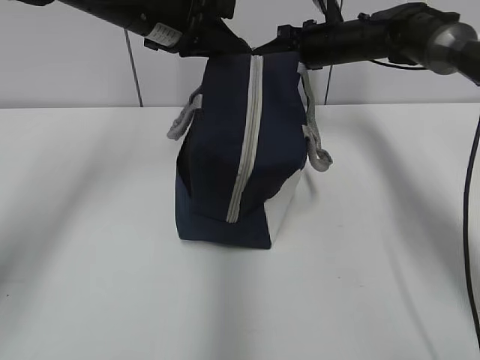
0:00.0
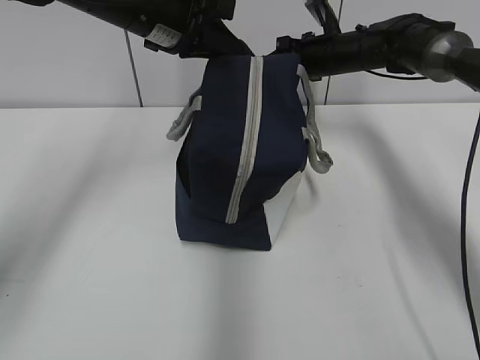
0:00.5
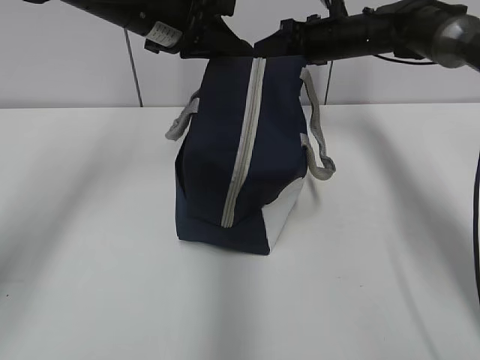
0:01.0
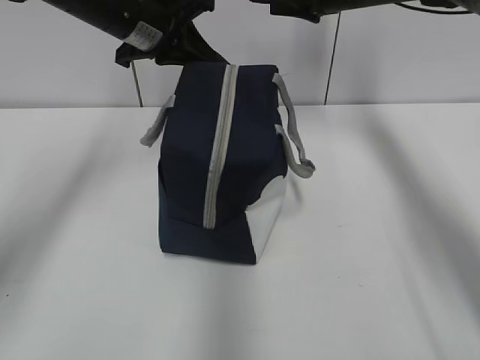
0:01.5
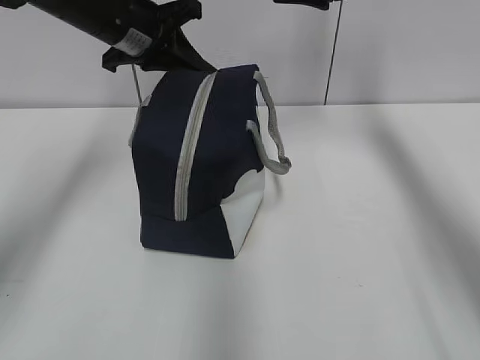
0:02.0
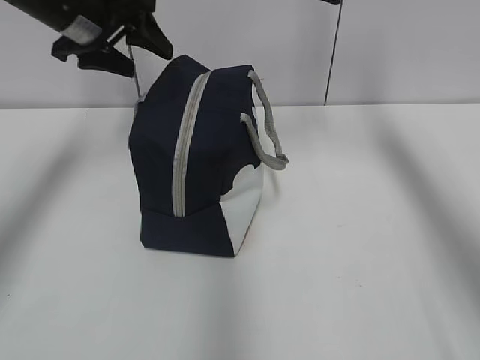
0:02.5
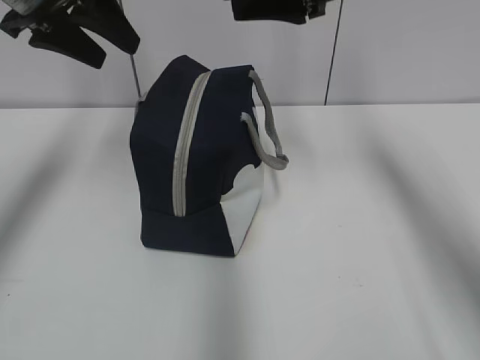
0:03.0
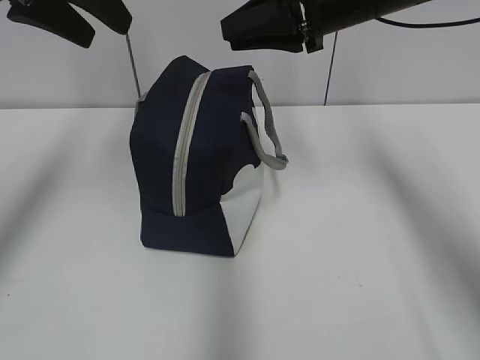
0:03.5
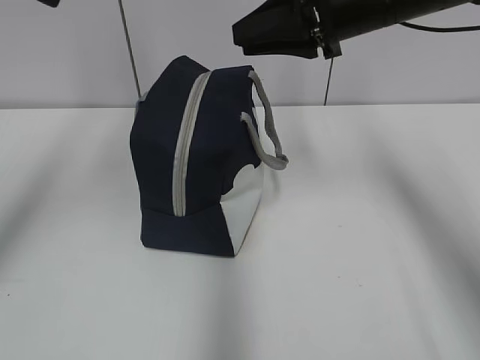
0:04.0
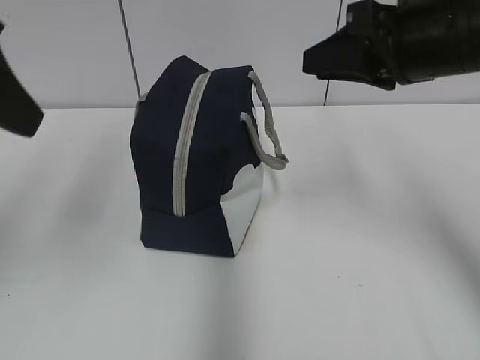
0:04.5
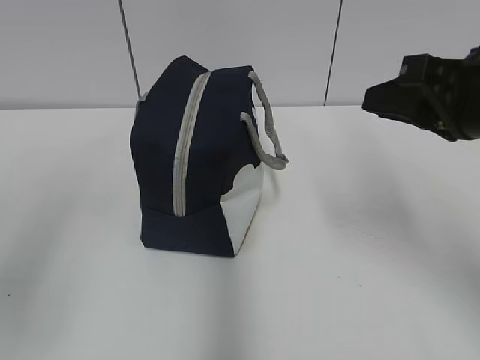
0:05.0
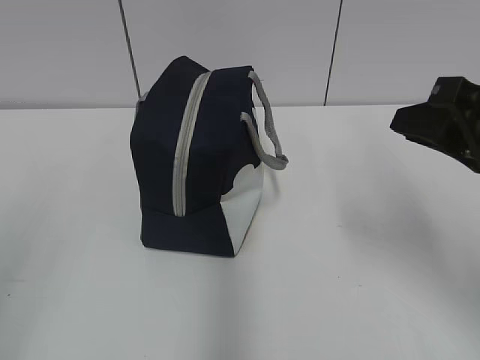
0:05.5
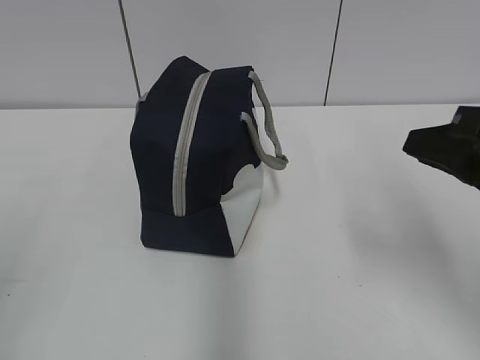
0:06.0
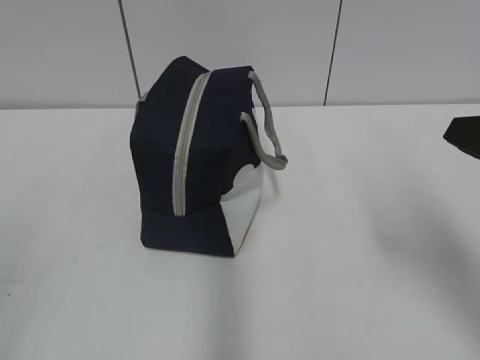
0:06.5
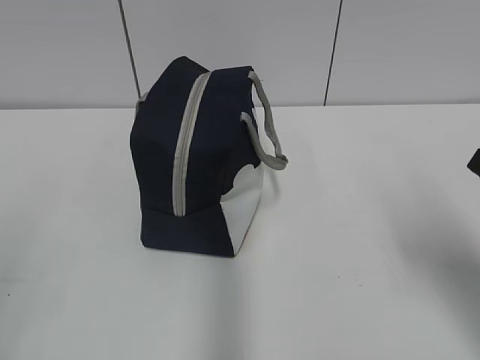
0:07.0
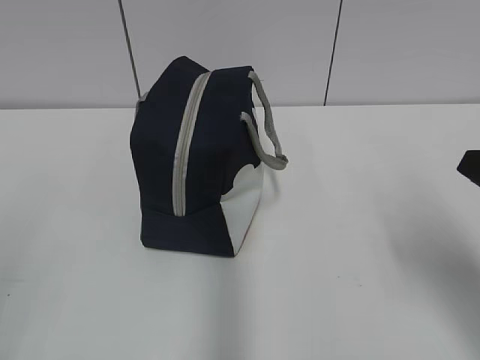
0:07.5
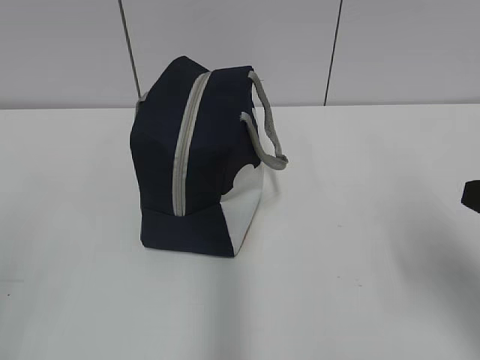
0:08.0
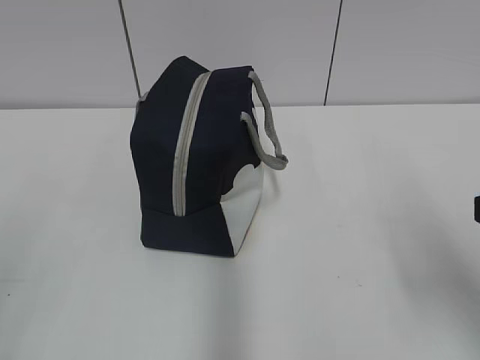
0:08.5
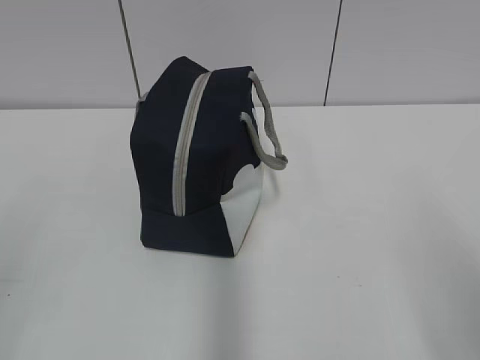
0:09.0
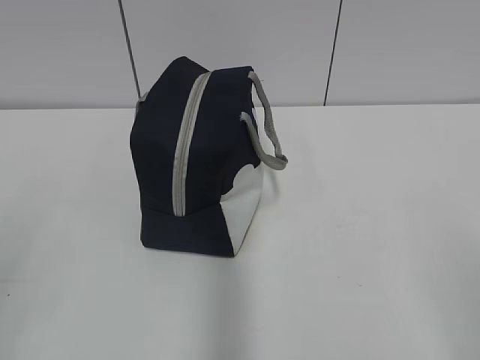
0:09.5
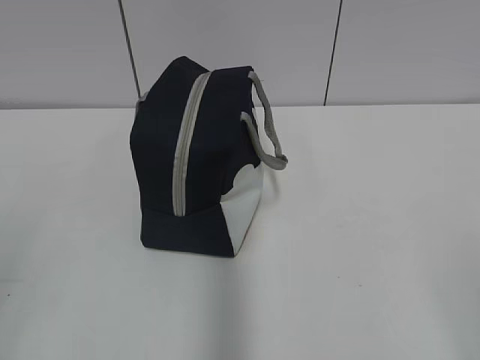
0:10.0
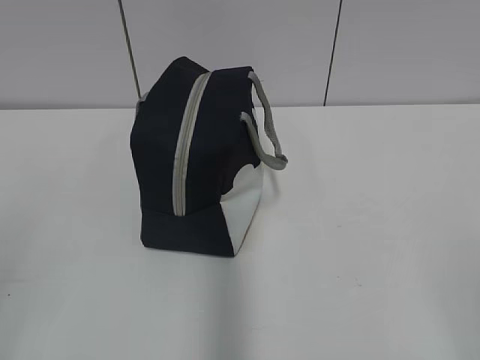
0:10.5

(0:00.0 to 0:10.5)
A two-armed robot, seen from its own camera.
Step, 0:01.0 - 0:02.0: Grab the lunch bag with your left hand.
0:00.0 - 0:02.0: The left gripper ends up some 5 cm from where it was, while the right gripper shifts approximately 15 cm upward and backward, and opens its fingers.
0:02.0 - 0:04.0: The right gripper moves backward, roughly 10 cm, and closes. The left gripper is displaced backward and upward by approximately 20 cm, and opens.
0:04.0 - 0:06.5: The left gripper travels backward, downward and to the left by roughly 30 cm. Meanwhile the right gripper is displaced backward and to the right by about 20 cm.
0:06.5 - 0:08.5: The right gripper opens.
0:08.5 - 0:10.5: The right gripper is displaced backward by approximately 15 cm.

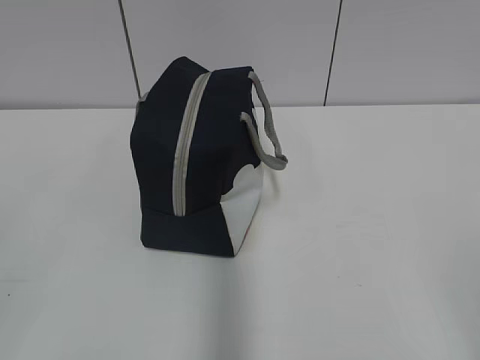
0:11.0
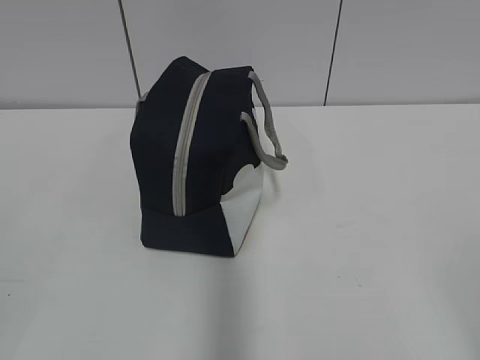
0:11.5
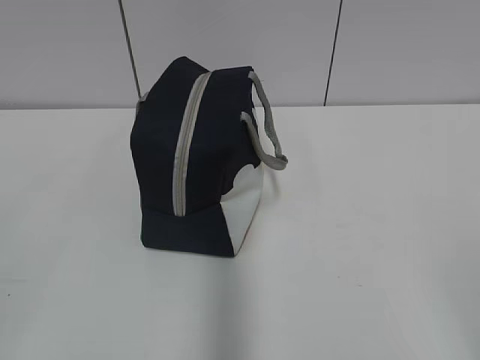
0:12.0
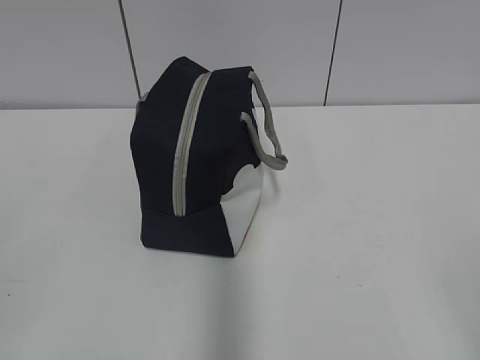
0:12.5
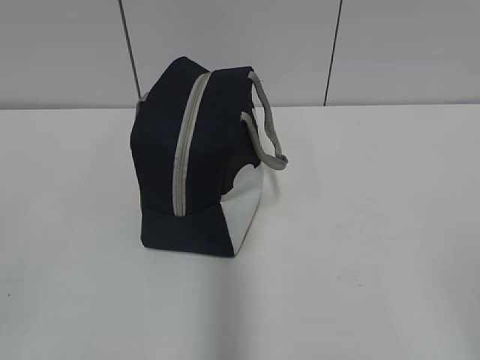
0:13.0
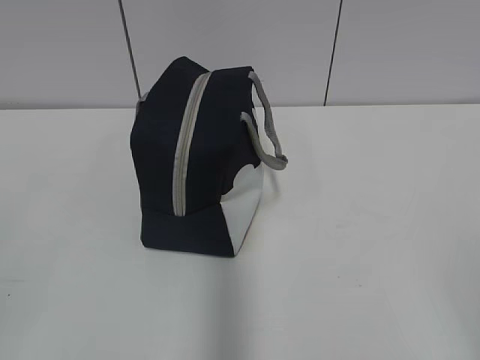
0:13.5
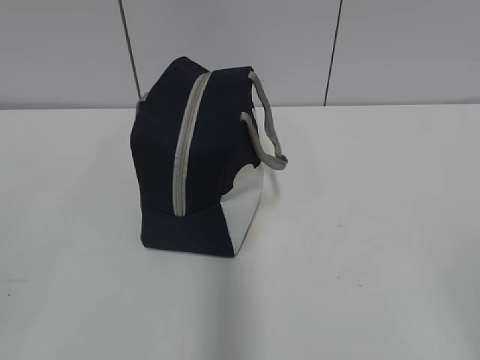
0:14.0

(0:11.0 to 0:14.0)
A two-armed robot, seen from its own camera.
0:12.5 - 0:14.0: The two grippers keep their place.
